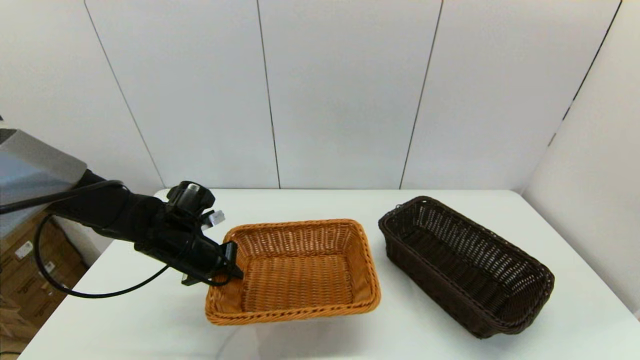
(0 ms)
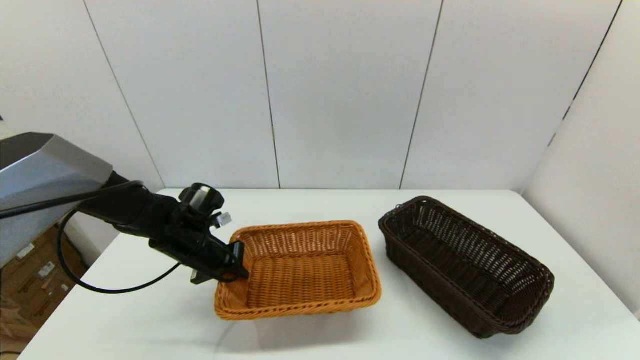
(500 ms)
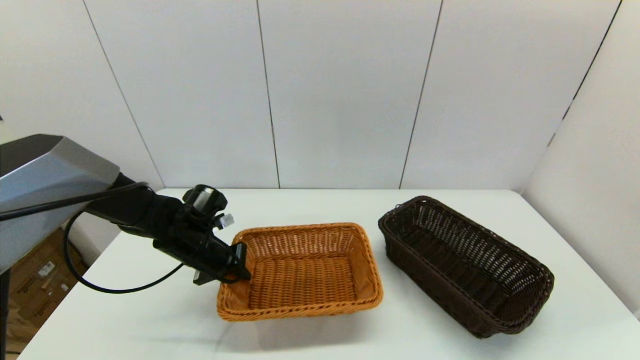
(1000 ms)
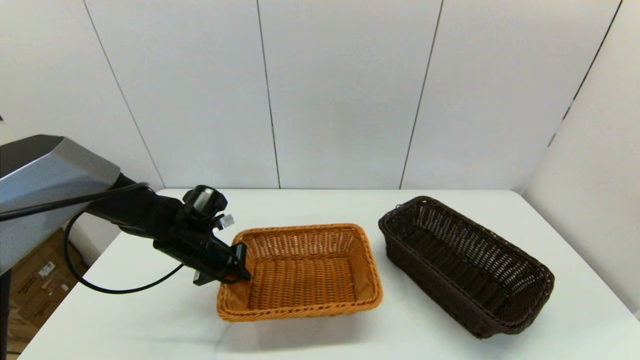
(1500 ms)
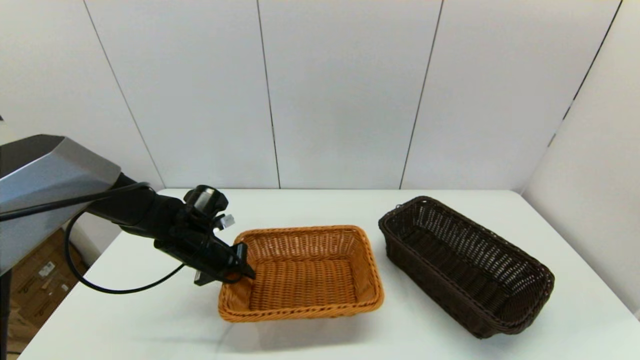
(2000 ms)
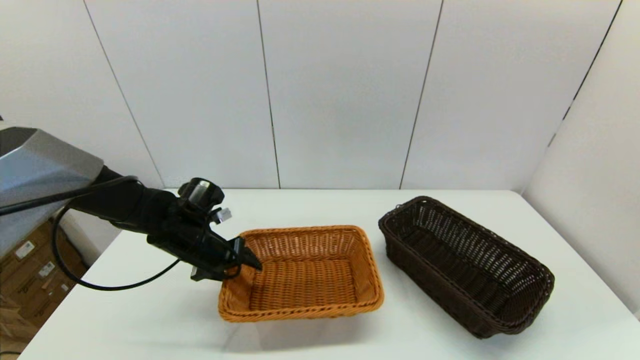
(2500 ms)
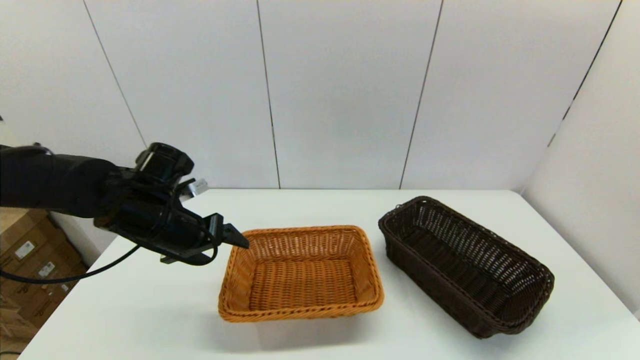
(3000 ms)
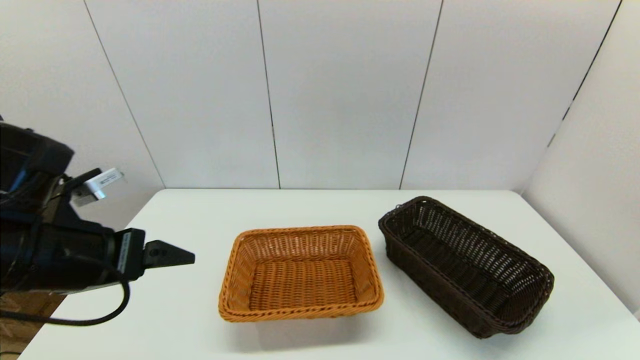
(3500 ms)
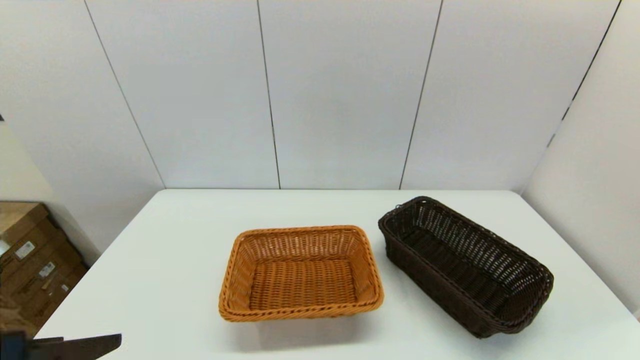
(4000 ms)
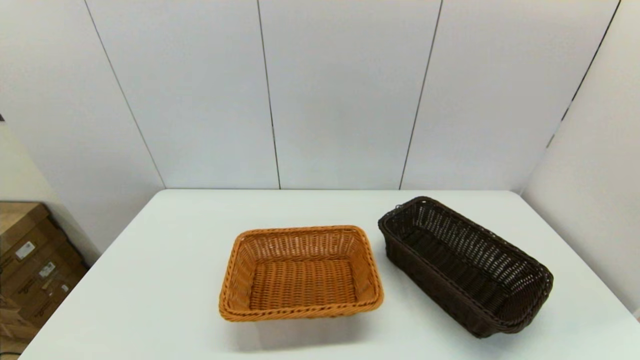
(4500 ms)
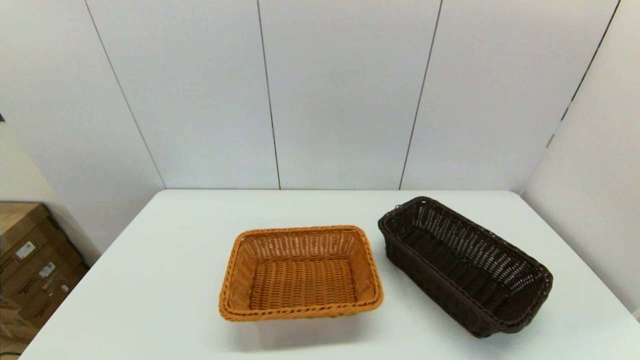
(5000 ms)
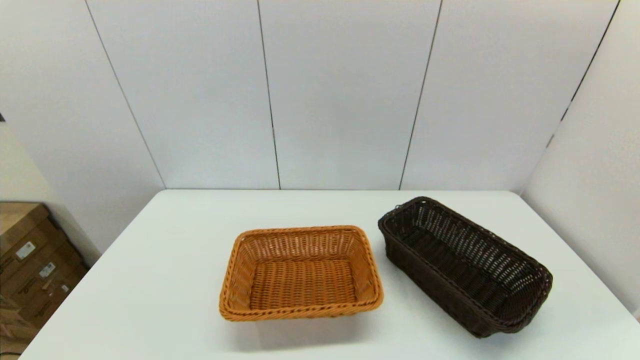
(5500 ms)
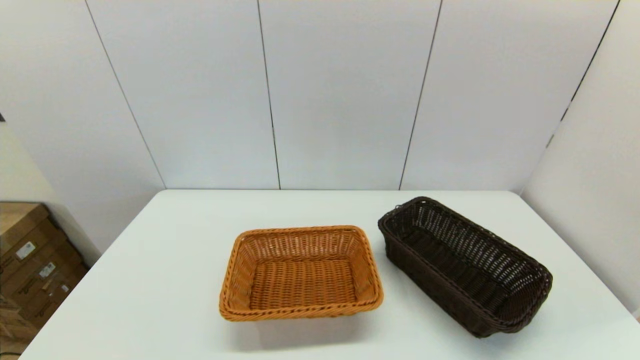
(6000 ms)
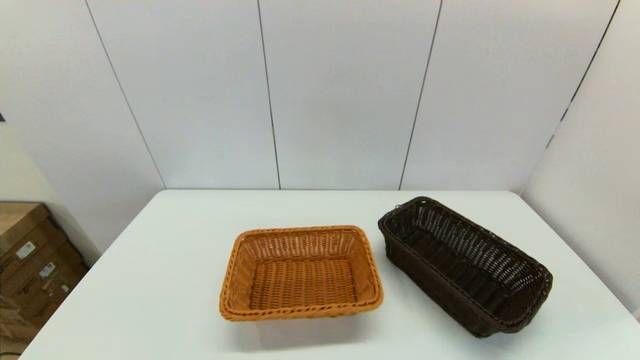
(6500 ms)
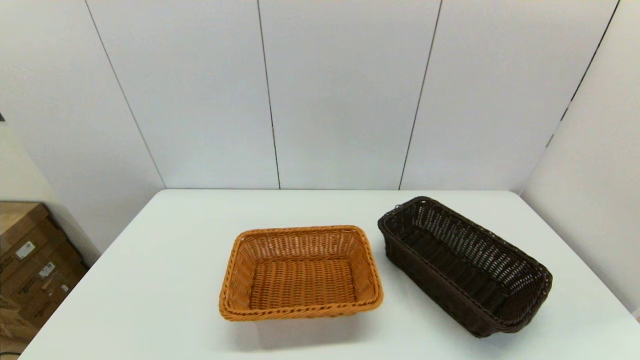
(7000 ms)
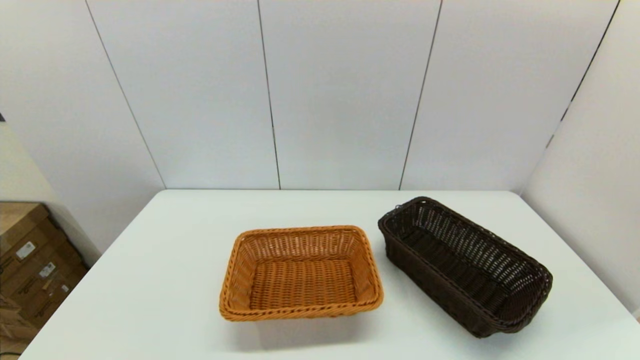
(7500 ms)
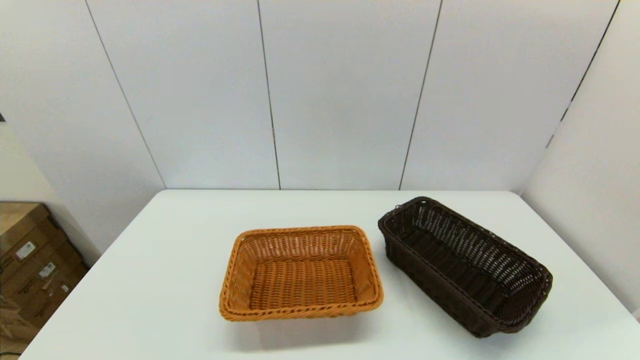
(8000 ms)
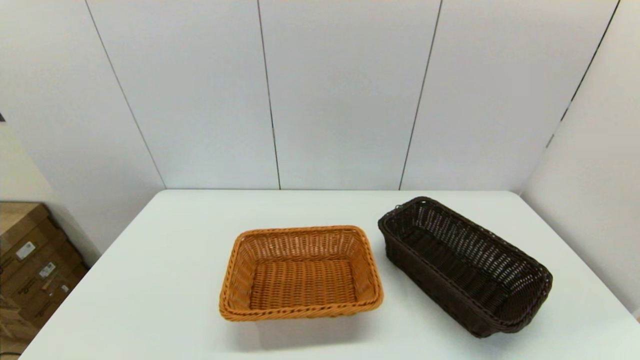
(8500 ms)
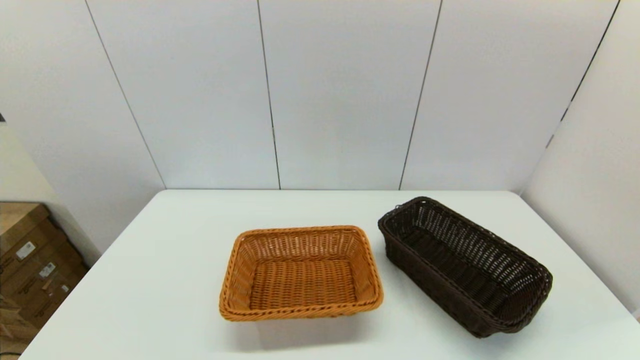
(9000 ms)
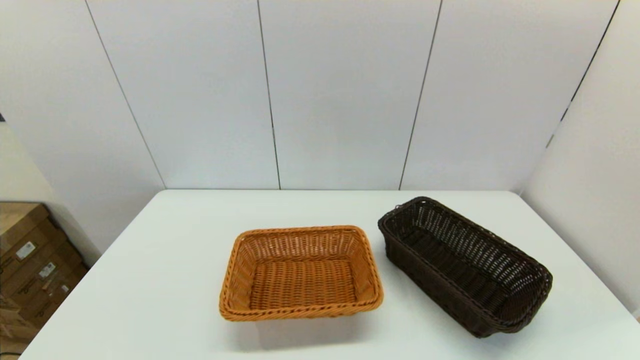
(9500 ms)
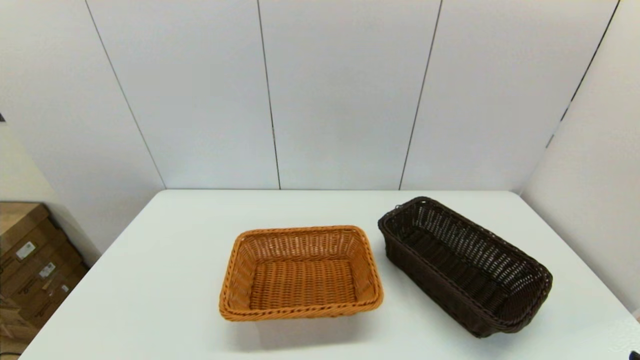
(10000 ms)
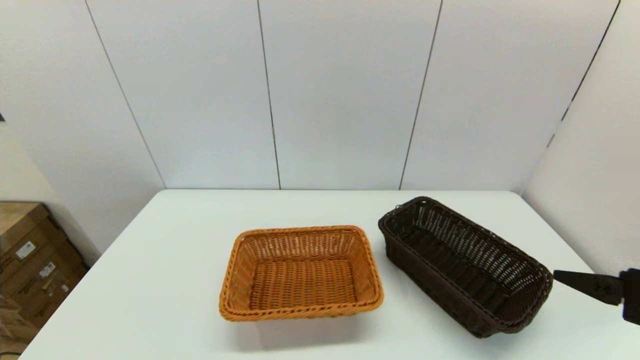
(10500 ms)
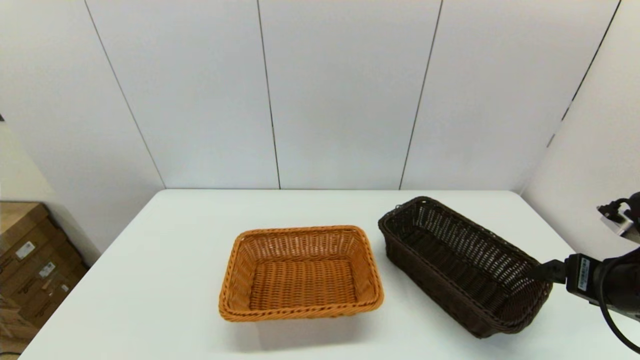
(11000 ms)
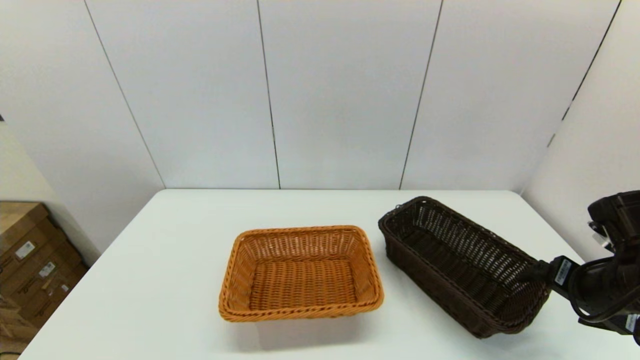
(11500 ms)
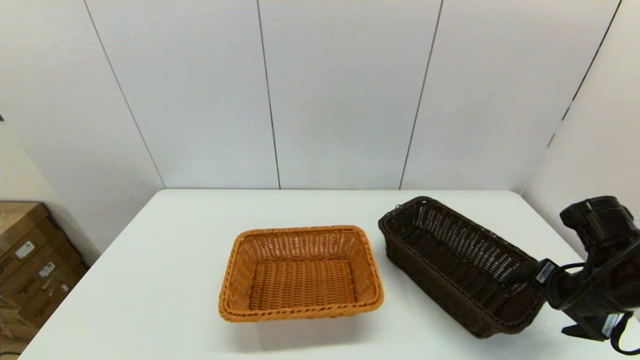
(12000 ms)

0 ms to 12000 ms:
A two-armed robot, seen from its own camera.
Task of the whole recording: stack a basket on top of another basket.
Step, 0 ms to 3000 ms: Place the light basket on the middle of the table with the left gripper.
0 ms to 2000 ms: The grippers move only a little.
2000 ms to 4000 ms: The left gripper is displaced backward and upward by roughly 30 cm, and opens its fingers.
4000 ms to 6000 ms: The left gripper travels downward and backward by approximately 15 cm.
10000 ms to 12000 ms: The right gripper goes approximately 20 cm forward.

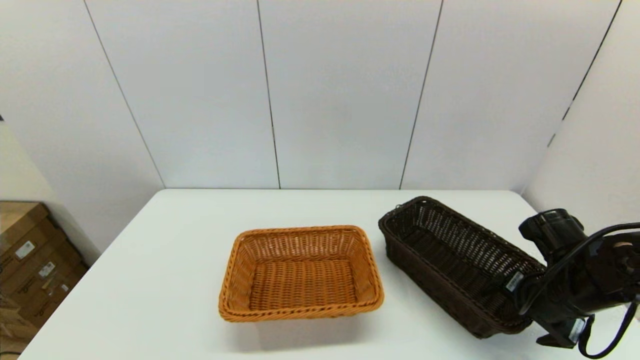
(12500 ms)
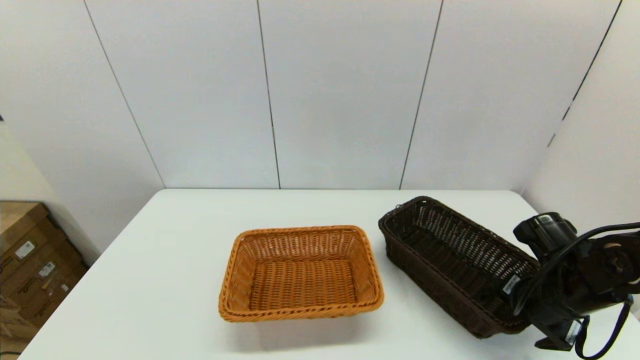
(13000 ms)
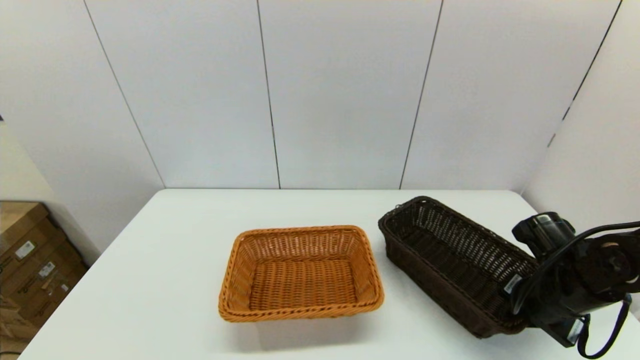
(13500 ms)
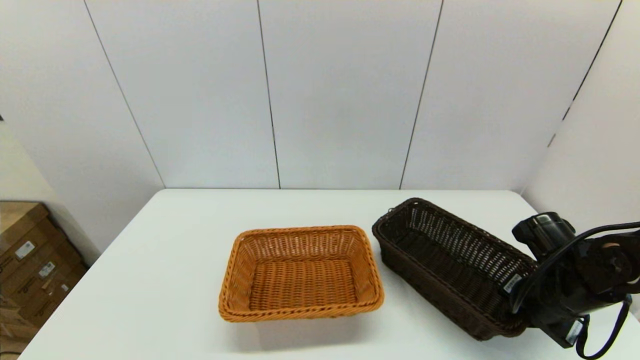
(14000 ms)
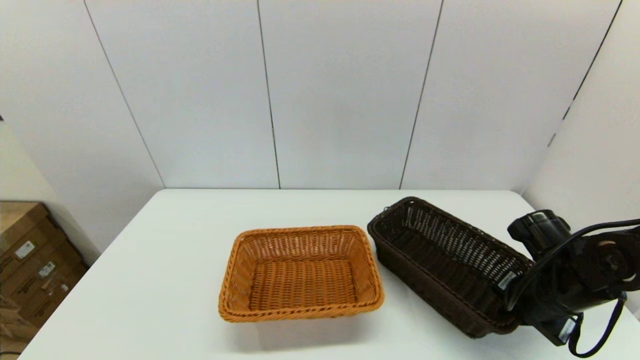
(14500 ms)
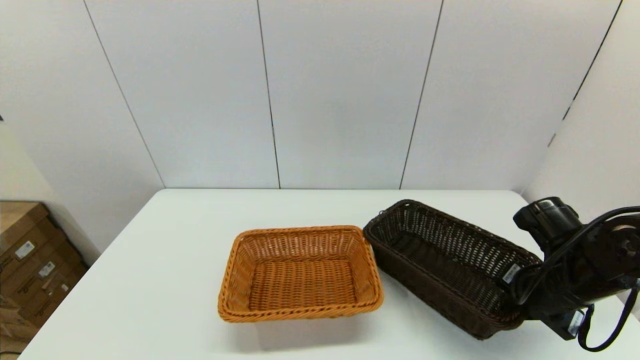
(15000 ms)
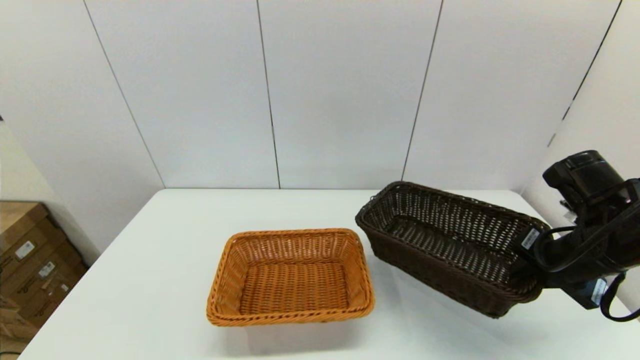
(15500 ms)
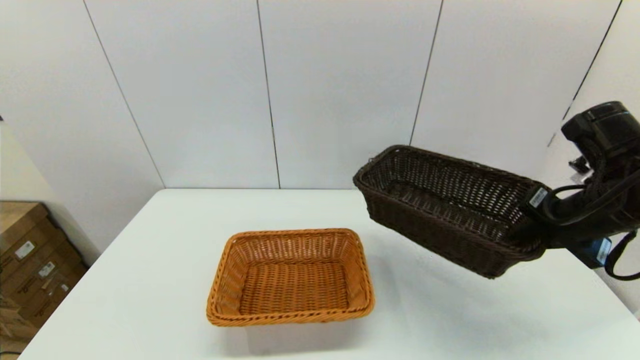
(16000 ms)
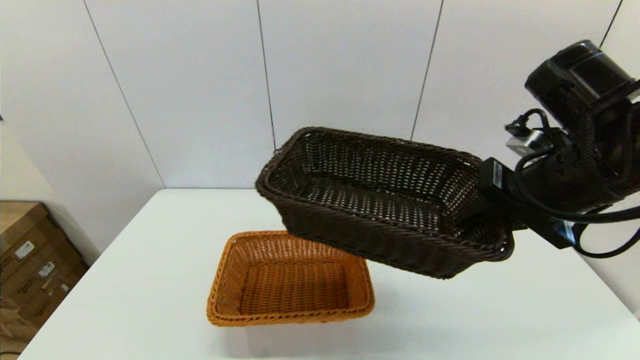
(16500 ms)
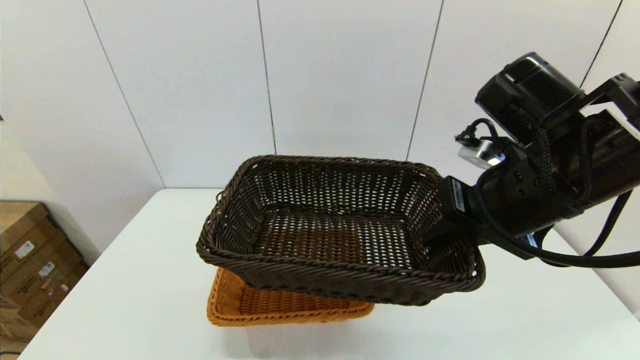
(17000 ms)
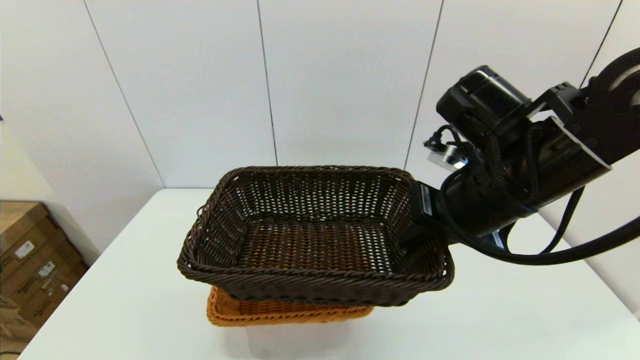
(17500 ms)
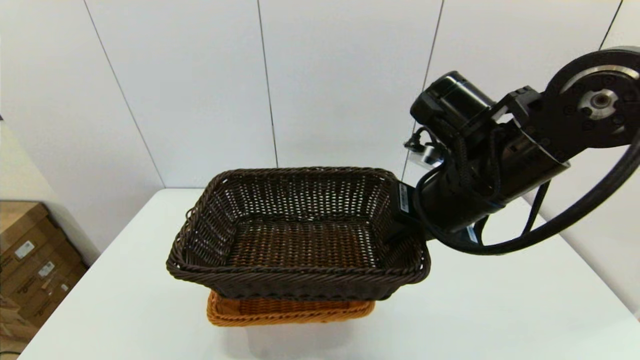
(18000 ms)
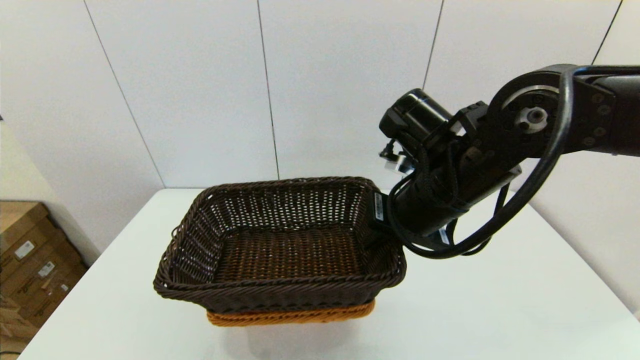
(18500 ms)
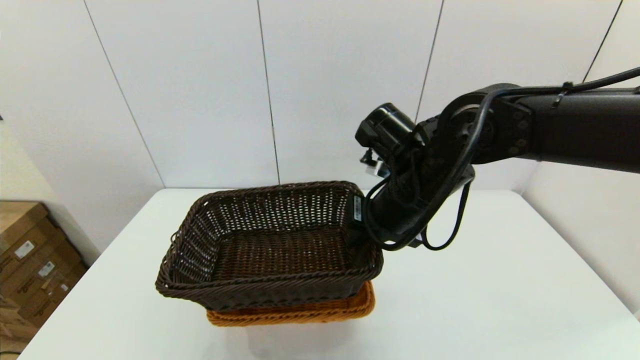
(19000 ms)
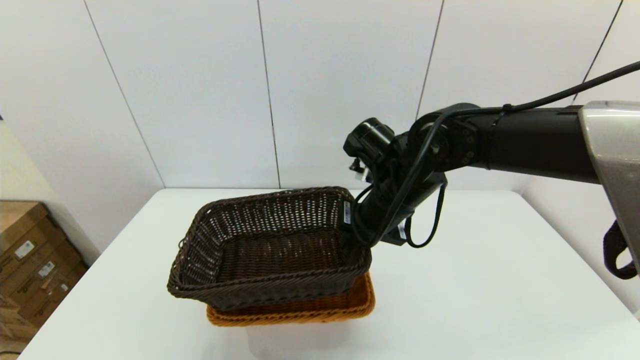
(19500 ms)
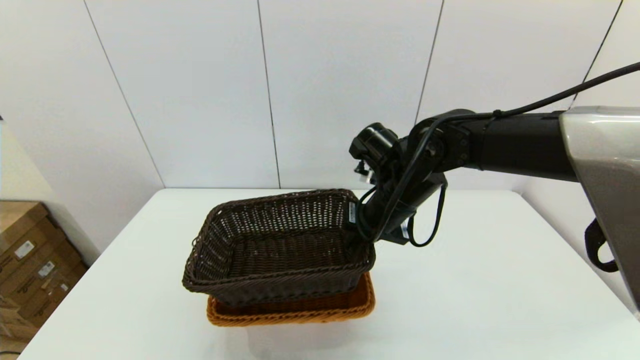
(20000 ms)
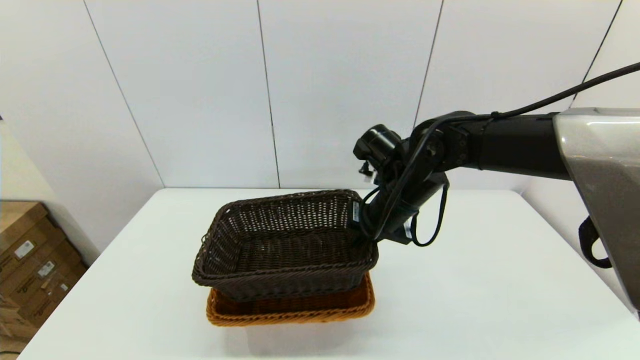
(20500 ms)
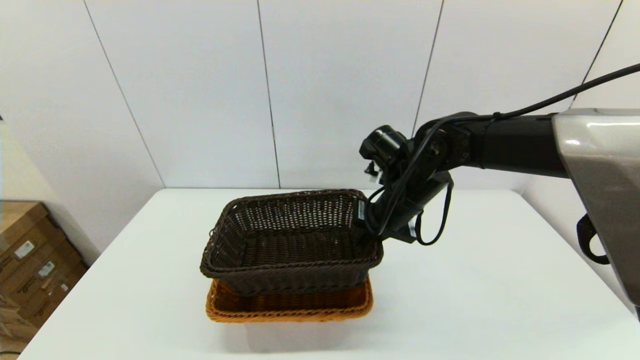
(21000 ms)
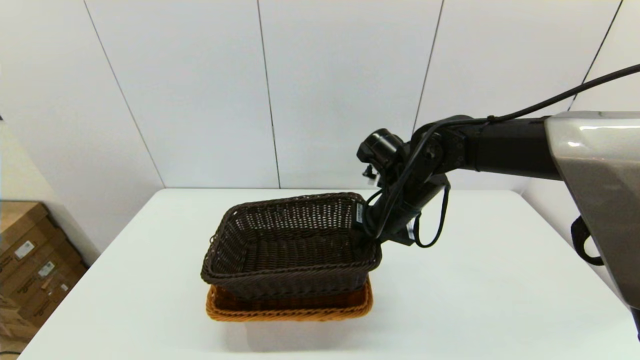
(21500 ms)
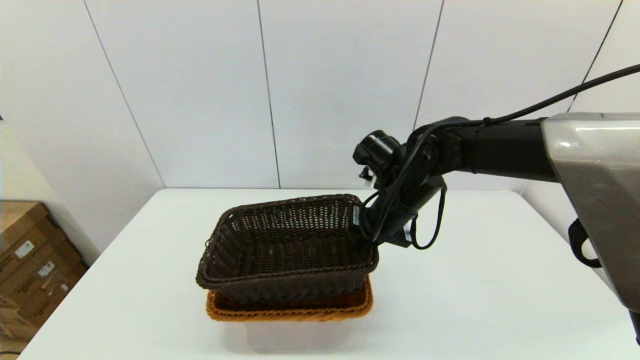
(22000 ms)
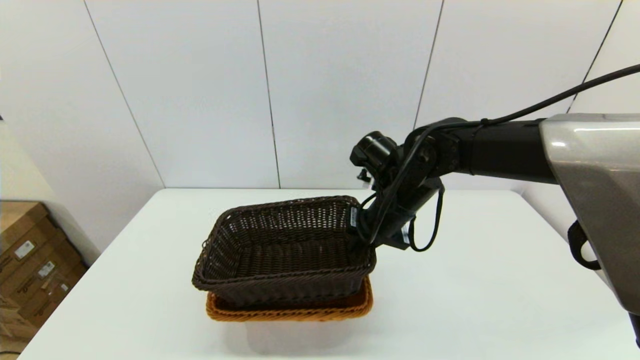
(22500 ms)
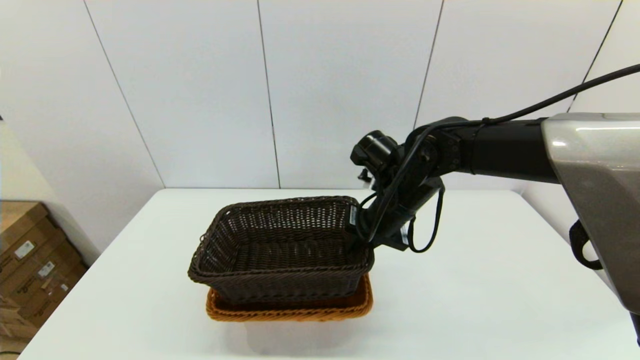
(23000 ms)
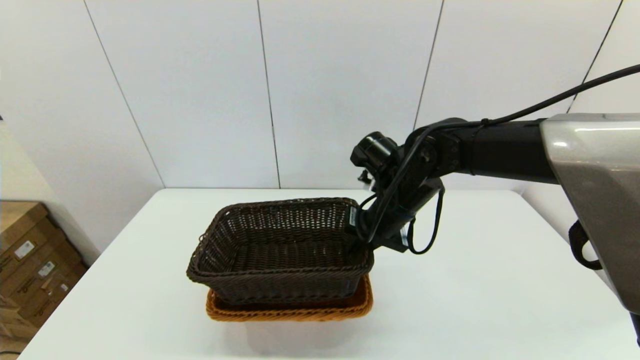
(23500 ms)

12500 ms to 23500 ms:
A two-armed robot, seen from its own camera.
Task of the whole recording: stack a basket on top of another basket.
12500 ms to 14500 ms: The right gripper closes.
14500 ms to 16000 ms: The right gripper moves upward, some 15 cm.
16000 ms to 18000 ms: The right gripper is displaced to the left by roughly 15 cm.
18000 ms to 20000 ms: The right gripper travels forward and downward by about 10 cm.
20000 ms to 21500 ms: There are only small adjustments of the grippers.
21500 ms to 23500 ms: The two grippers keep their place.
